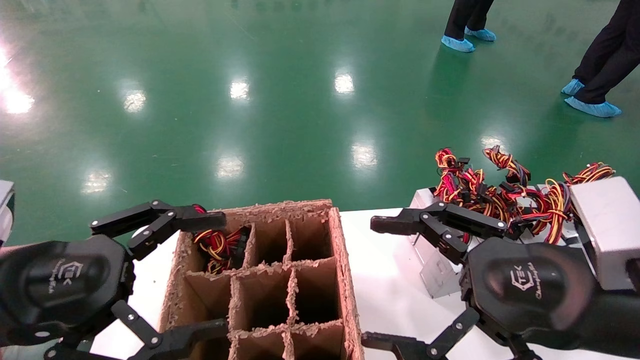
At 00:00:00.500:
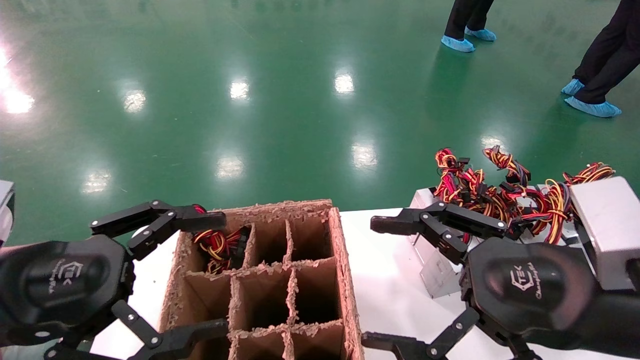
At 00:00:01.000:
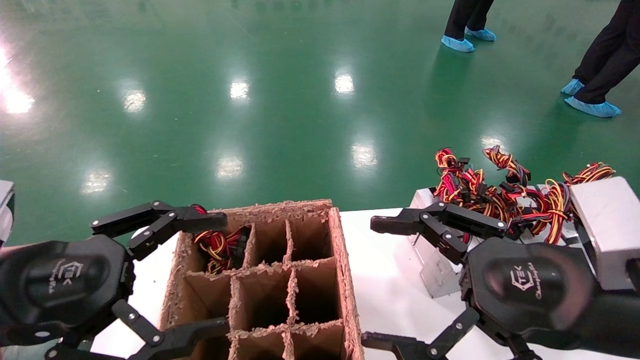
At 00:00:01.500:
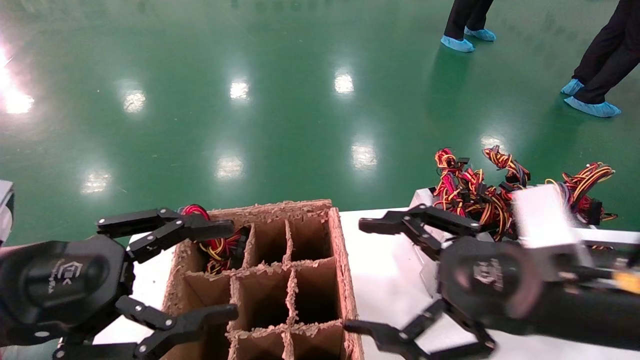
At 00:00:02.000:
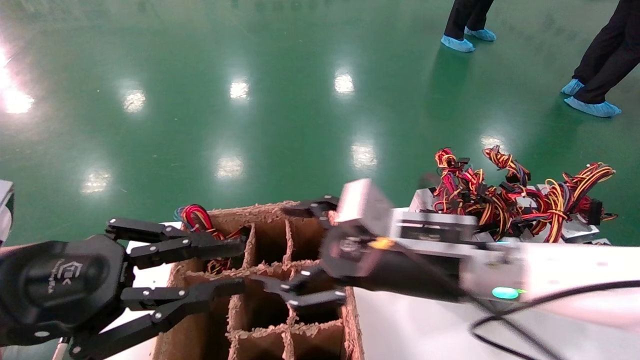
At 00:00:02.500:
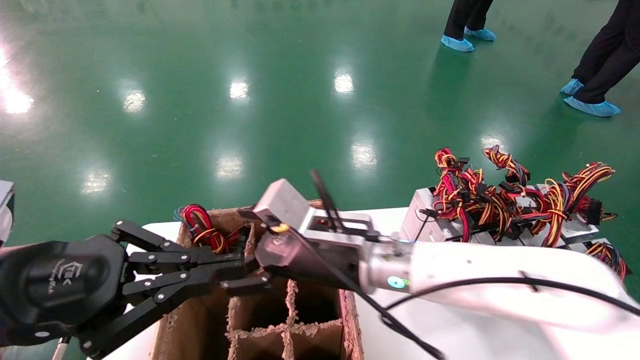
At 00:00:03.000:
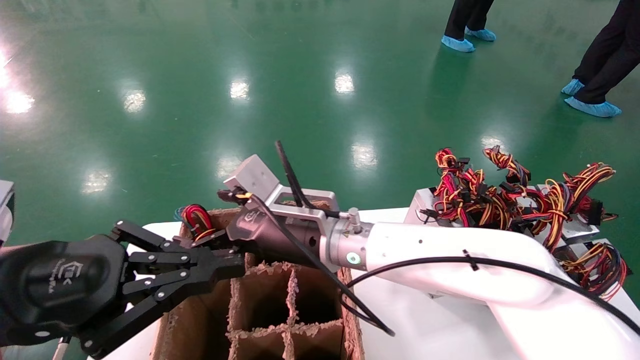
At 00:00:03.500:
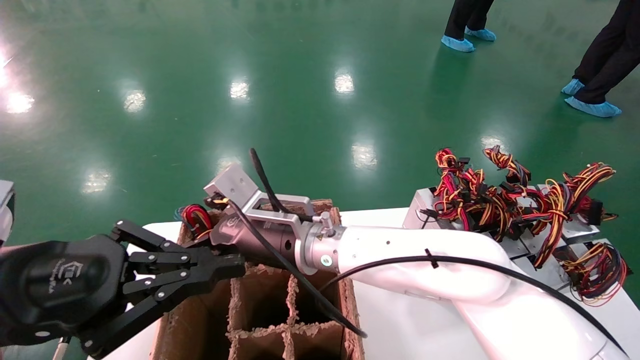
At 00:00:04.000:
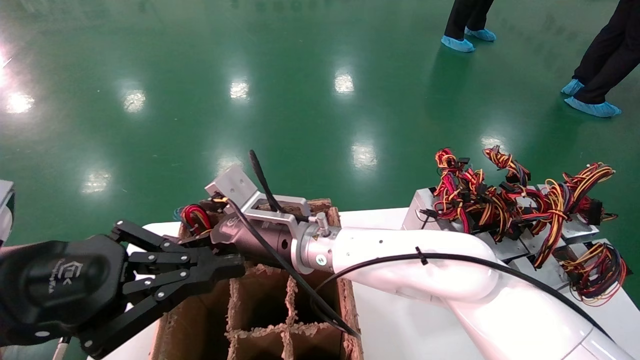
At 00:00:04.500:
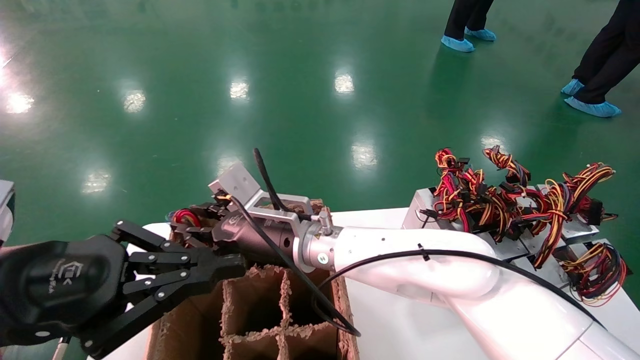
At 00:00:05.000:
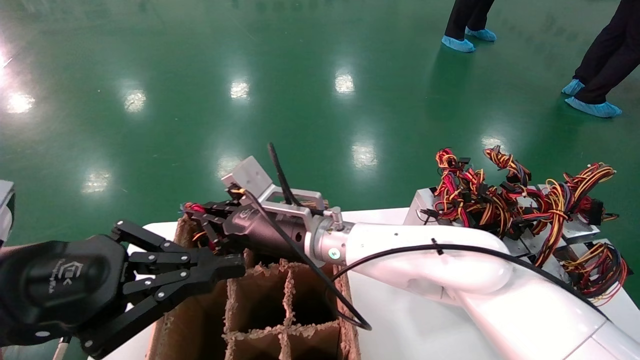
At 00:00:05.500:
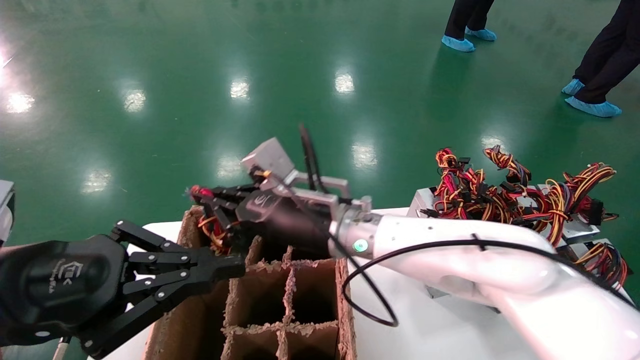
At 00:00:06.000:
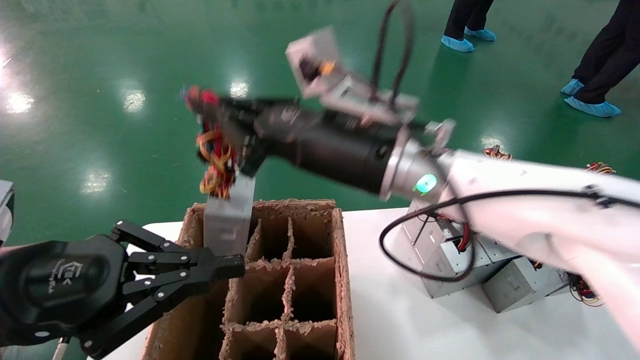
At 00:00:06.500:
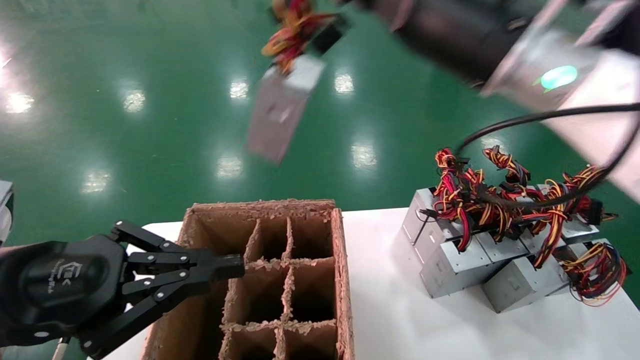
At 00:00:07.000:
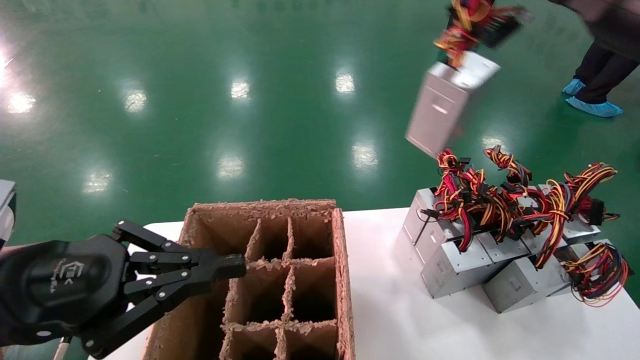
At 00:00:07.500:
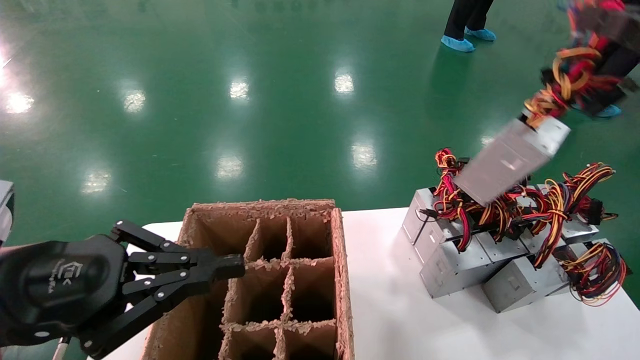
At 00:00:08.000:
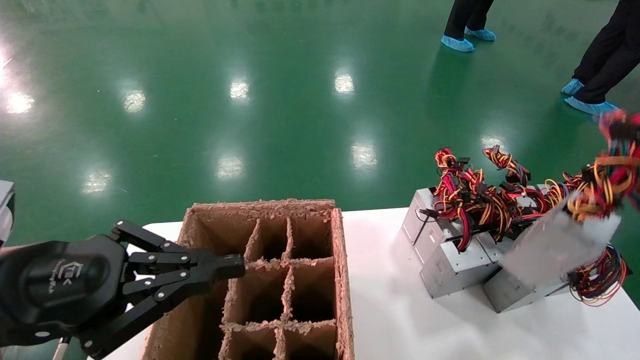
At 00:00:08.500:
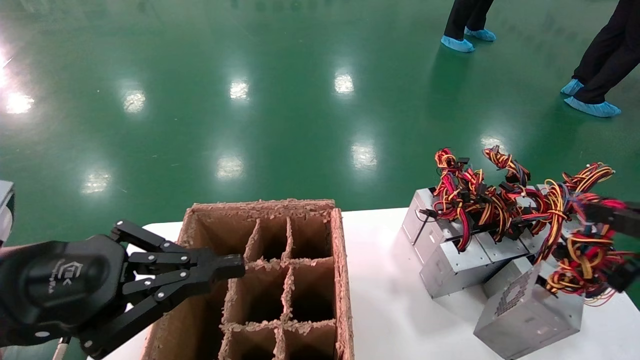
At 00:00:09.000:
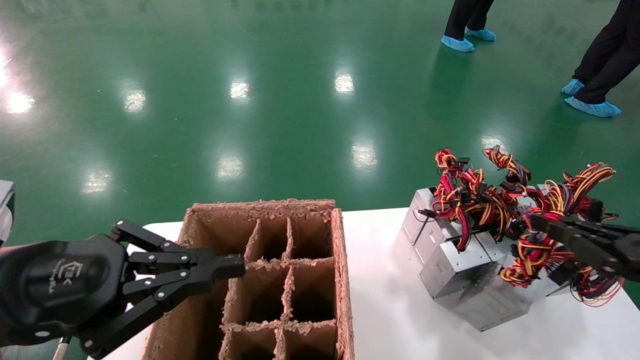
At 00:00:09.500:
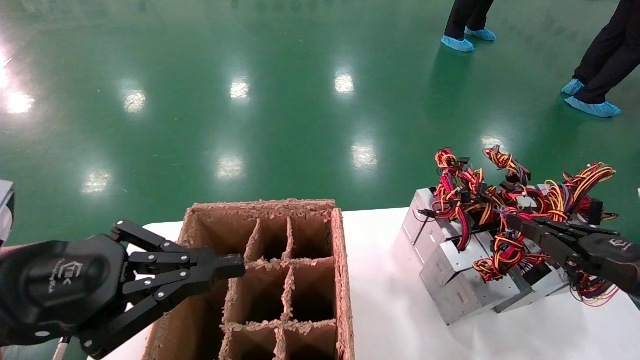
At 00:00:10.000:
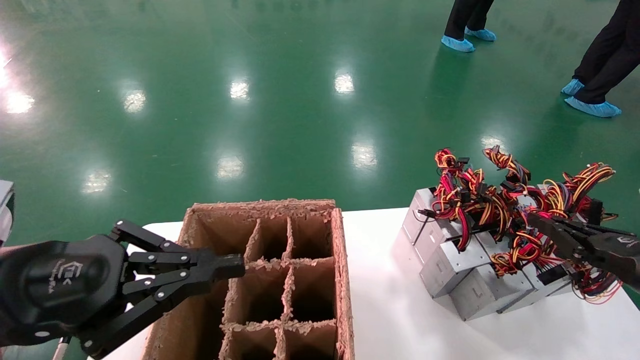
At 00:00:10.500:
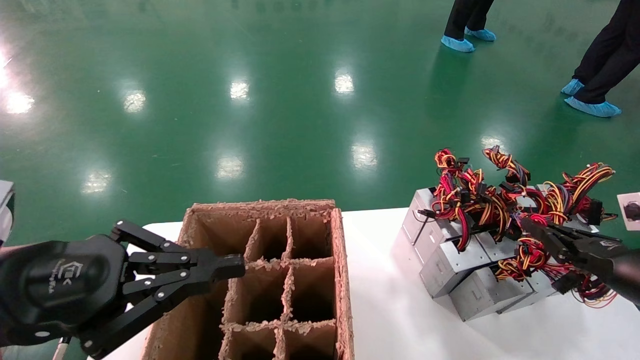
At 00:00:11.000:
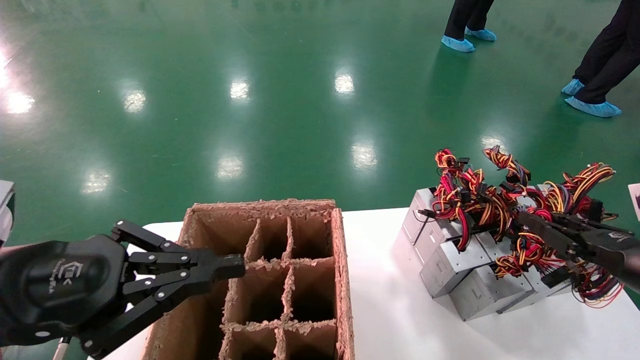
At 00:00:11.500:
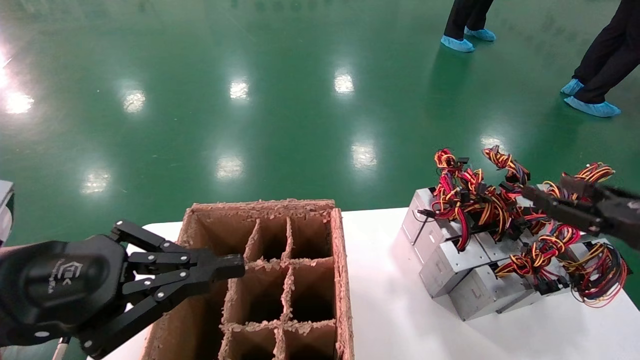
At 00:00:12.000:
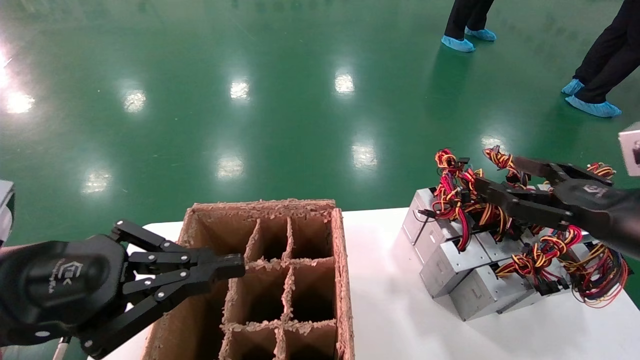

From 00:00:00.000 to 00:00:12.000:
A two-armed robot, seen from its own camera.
Step, from 00:00:02.000 to 00:00:04.500: Grab the main unit power supply from the containment box.
Step, from 00:00:05.000 to 00:00:11.500: Place the main unit power supply in the designated area.
From 00:00:00.000 to 00:00:02.000: The right gripper heads to the left and forward, covering some 15 cm, while the left gripper closes.
From 00:00:02.000 to 00:00:04.000: The left gripper closes its fingers; the right gripper shifts approximately 20 cm to the left and forward.
From 00:00:04.000 to 00:00:06.000: The right gripper goes roughly 15 cm upward, to the right and backward, and closes up.
From 00:00:06.000 to 00:00:08.000: The right gripper goes roughly 40 cm to the right and backward.
From 00:00:08.000 to 00:00:10.000: The right gripper is displaced downward and forward by about 20 cm.
From 00:00:10.000 to 00:00:12.000: The right gripper heads upward and to the left, covering some 10 cm, and opens.

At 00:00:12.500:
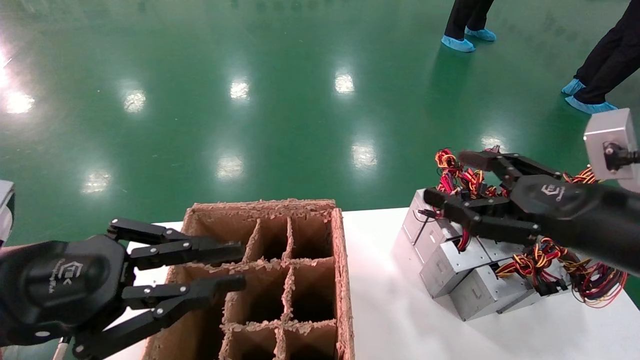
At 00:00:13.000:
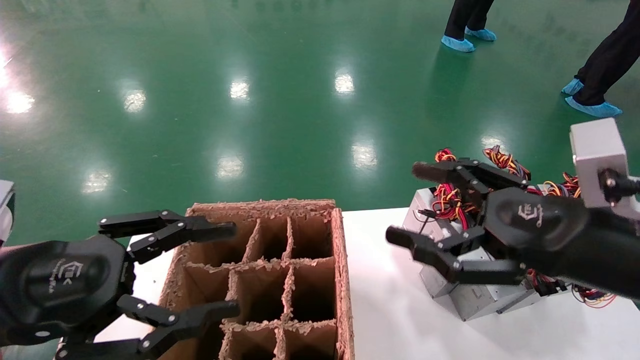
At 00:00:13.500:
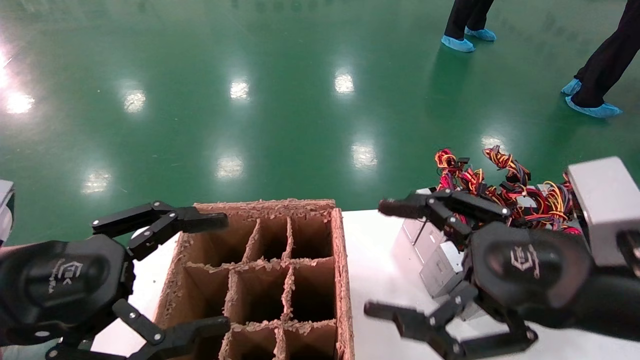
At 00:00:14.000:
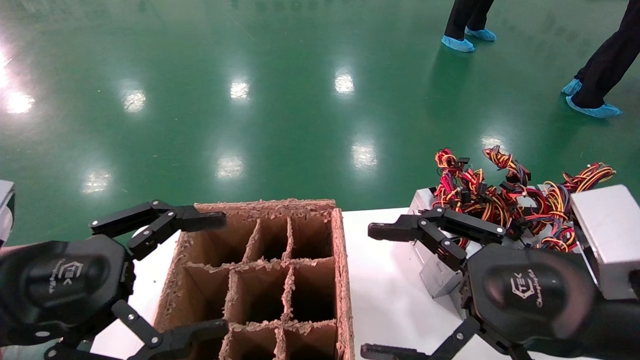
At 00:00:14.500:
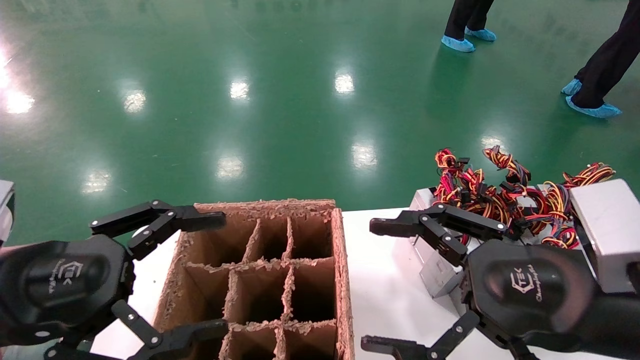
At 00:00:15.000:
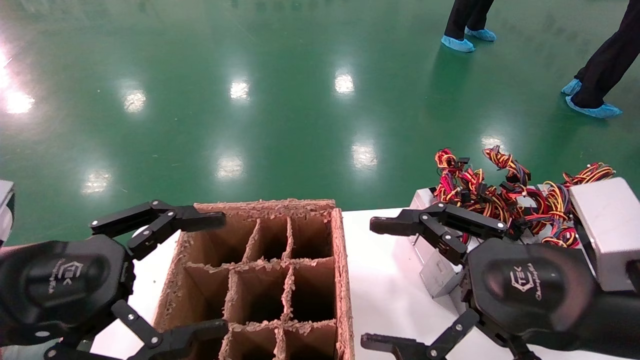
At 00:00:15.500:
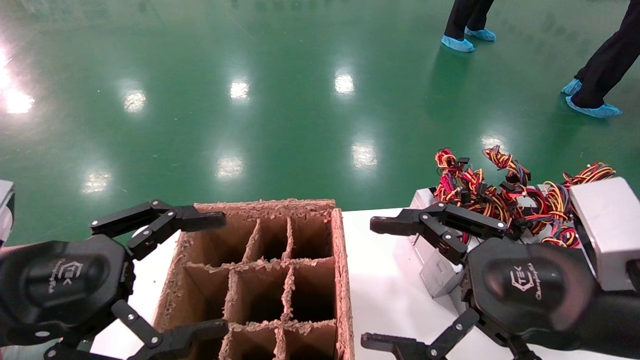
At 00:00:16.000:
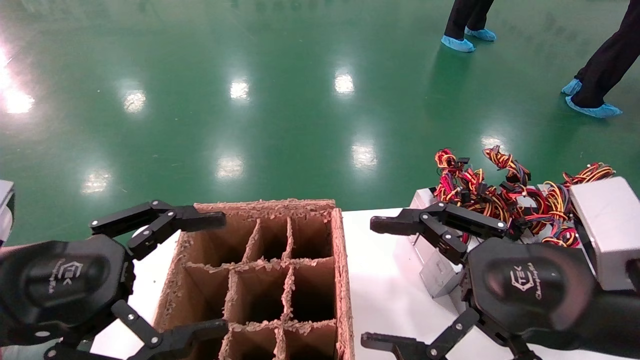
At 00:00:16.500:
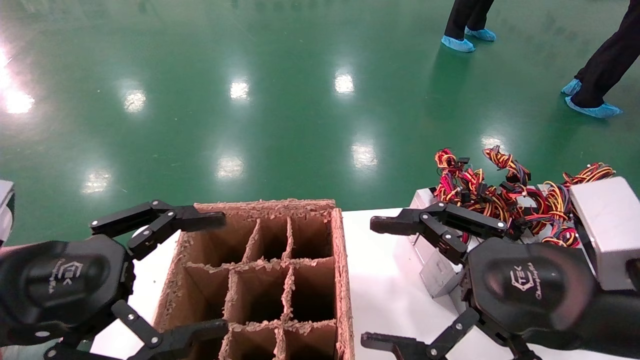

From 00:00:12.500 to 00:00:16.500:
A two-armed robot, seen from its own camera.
From 00:00:12.500 to 00:00:14.500: The left gripper opens up; the right gripper heads to the left and backward, covering roughly 10 cm.
From 00:00:14.500 to 00:00:16.500: Neither gripper changes place.
